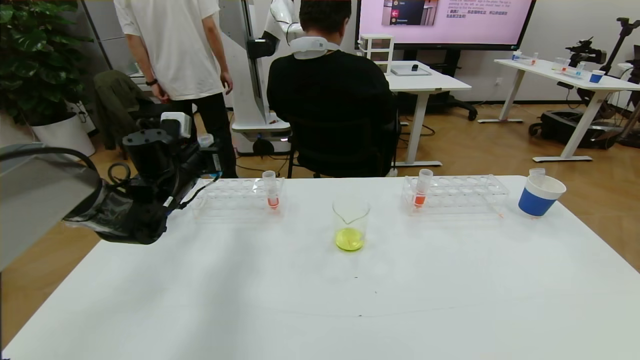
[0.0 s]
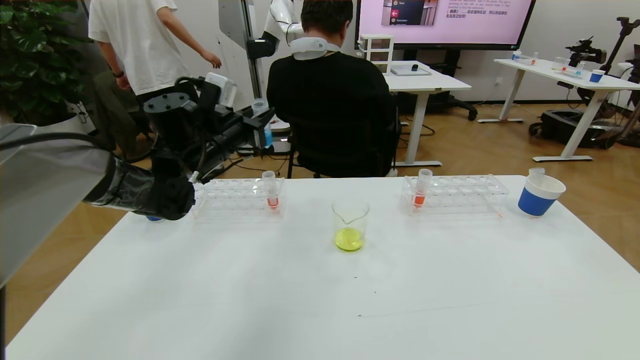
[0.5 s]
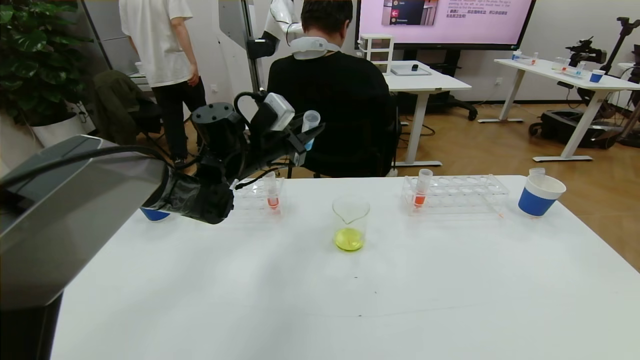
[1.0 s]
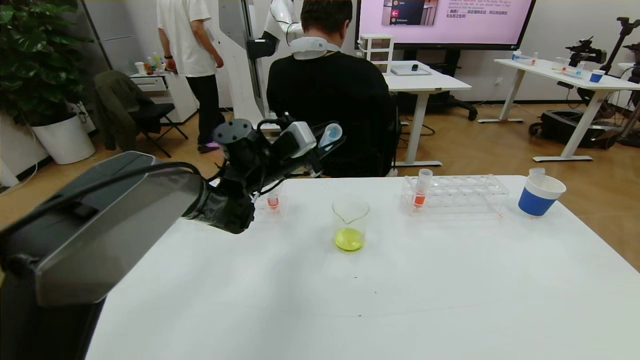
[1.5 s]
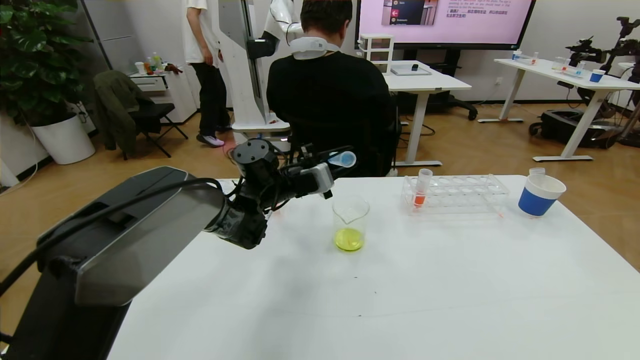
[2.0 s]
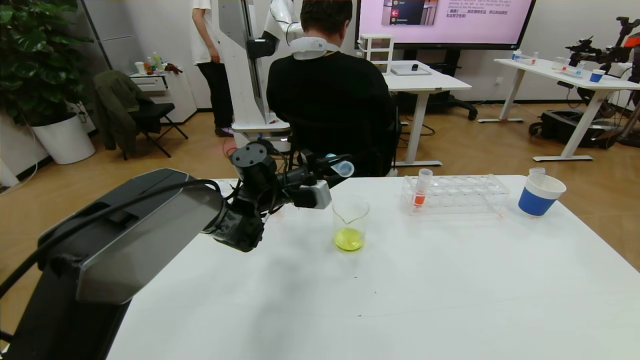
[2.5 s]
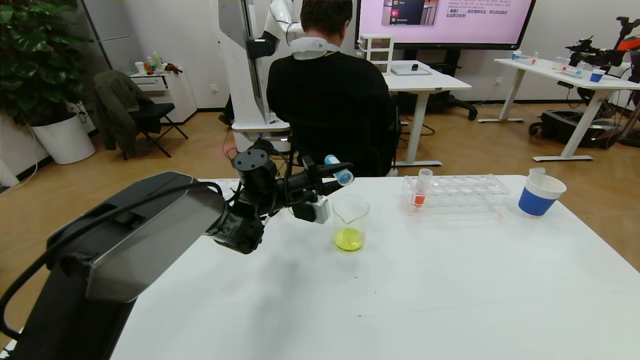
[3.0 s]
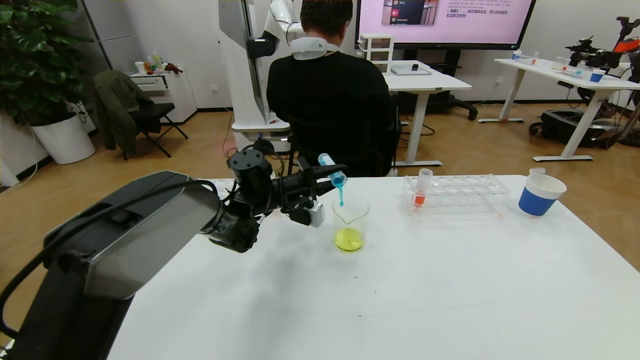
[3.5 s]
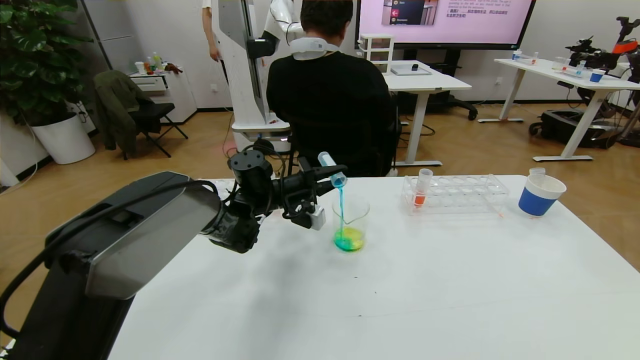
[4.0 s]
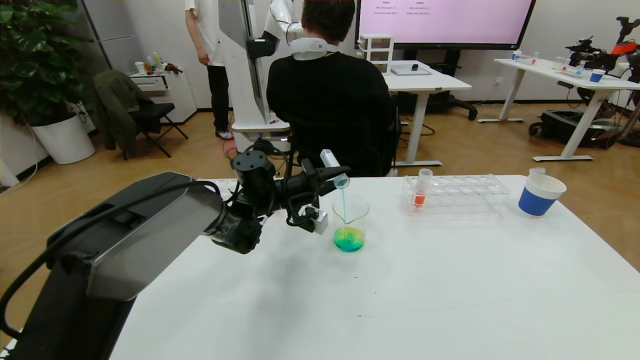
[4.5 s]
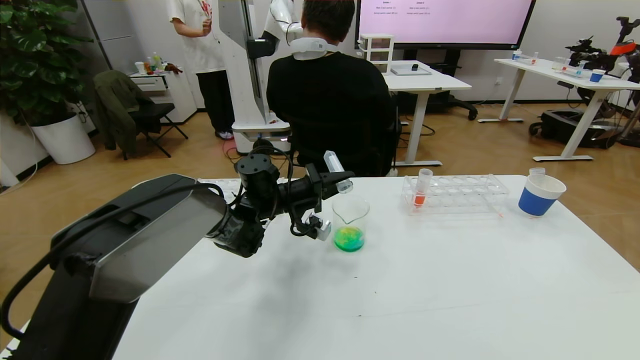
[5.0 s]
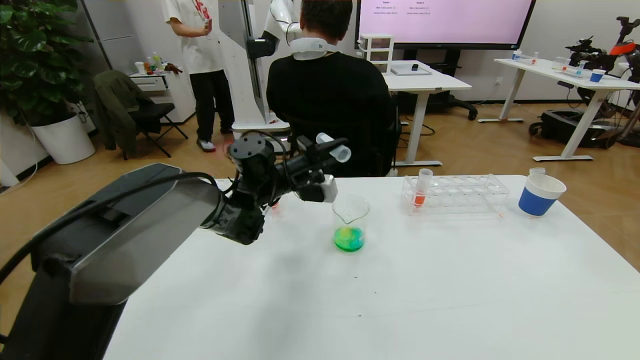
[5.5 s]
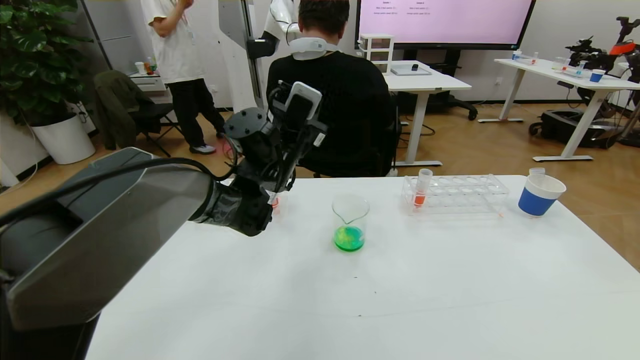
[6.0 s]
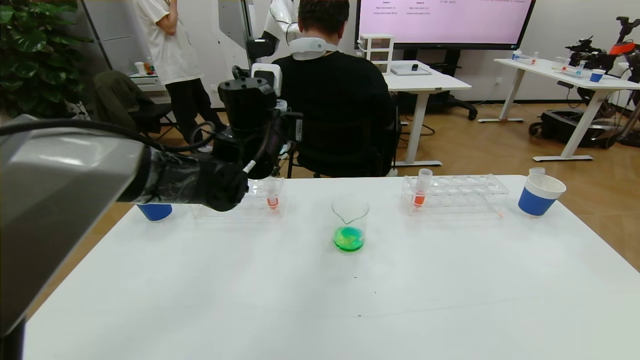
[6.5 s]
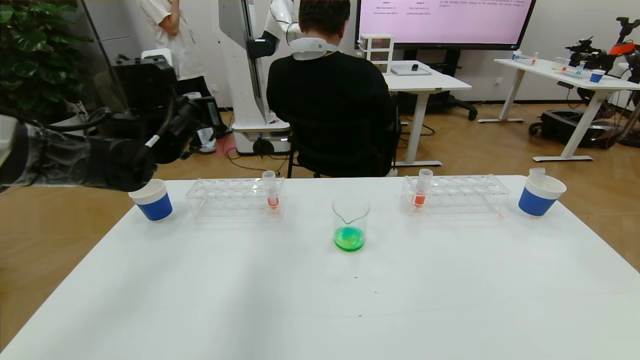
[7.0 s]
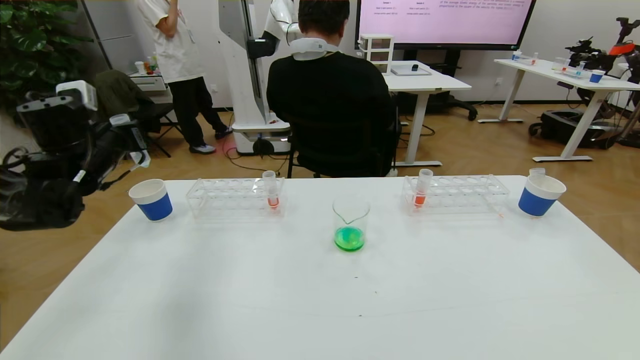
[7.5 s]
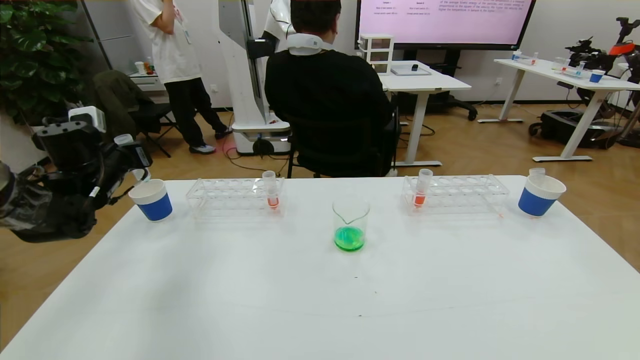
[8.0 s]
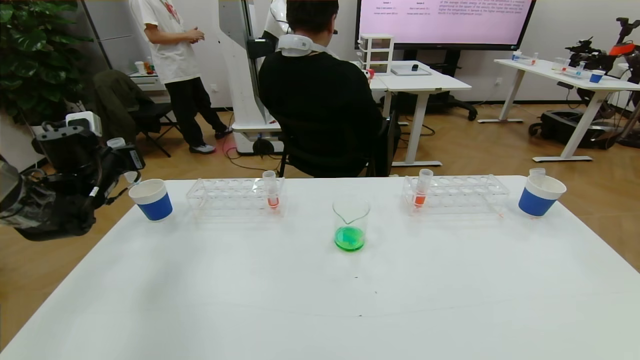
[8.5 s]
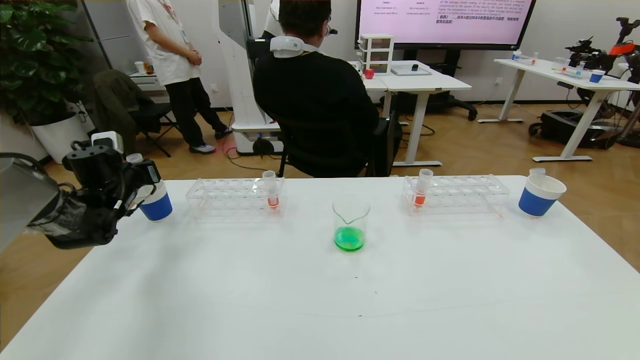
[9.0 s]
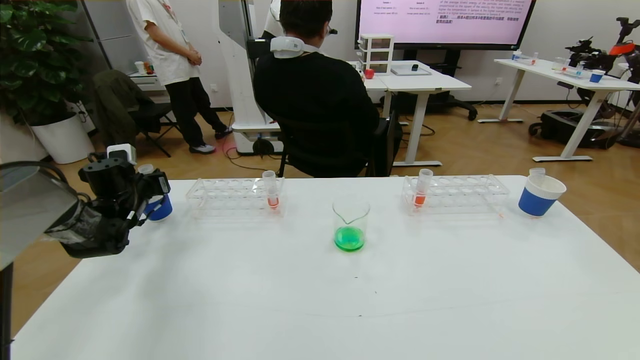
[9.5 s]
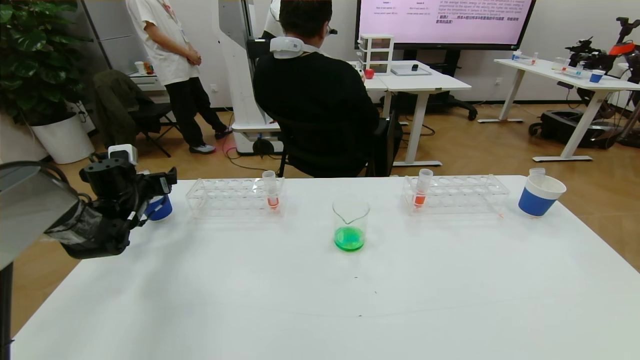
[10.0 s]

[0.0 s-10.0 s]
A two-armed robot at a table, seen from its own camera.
Task of the whole recording: pick up the test tube with yellow pigment and the test tube with blue pigment by grippers and pour them into the beaker.
0.0 to 2.0 s: The left gripper shifts roughly 20 cm to the right.
4.0 to 6.0 s: The left gripper heads upward, covering roughly 10 cm.
6.0 to 8.0 s: The left gripper is displaced to the left by some 30 cm.
8.0 to 10.0 s: The left gripper moves downward, about 10 cm, and opens.

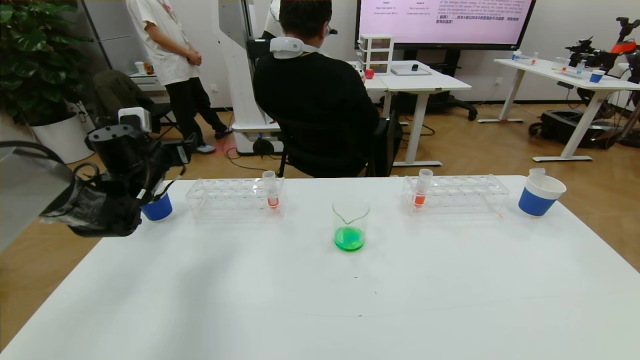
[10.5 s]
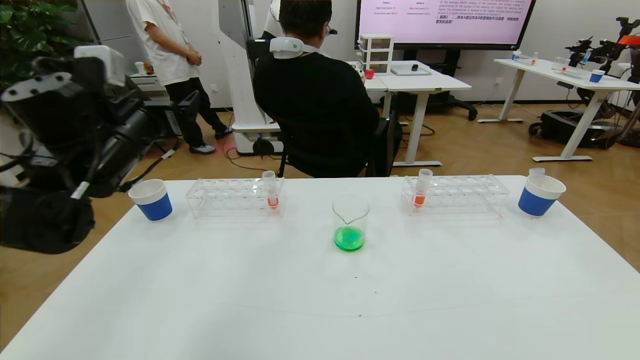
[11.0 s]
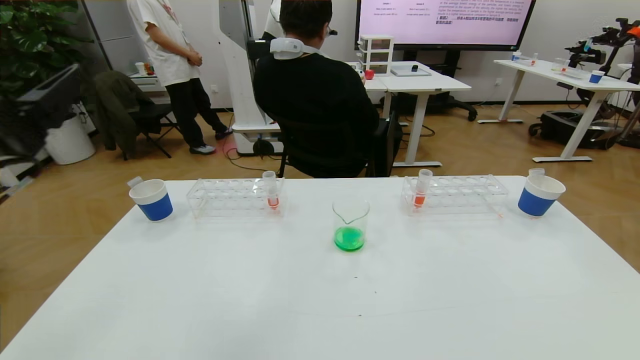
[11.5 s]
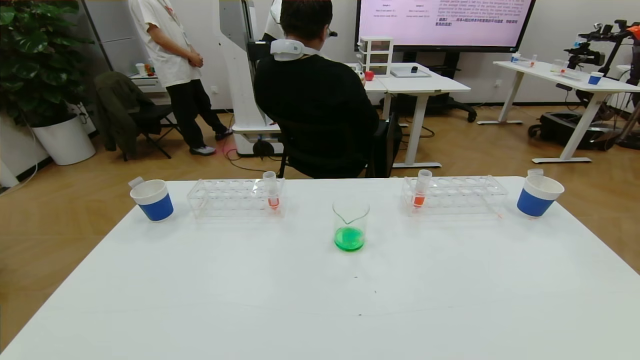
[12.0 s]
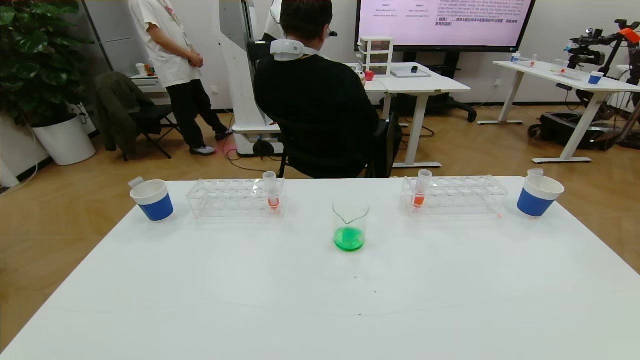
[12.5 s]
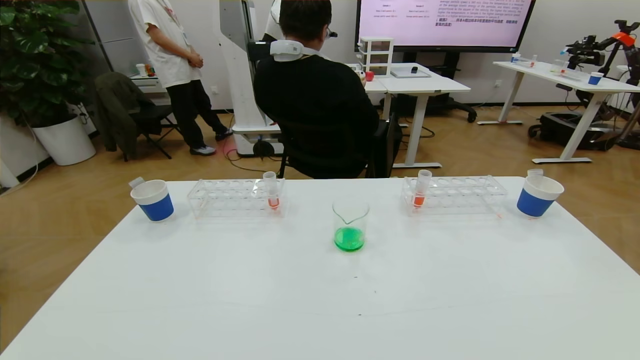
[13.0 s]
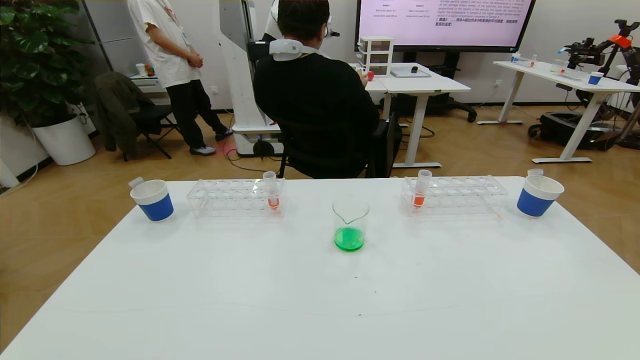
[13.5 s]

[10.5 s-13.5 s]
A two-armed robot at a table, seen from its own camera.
Task of the whole recording: pick up the test tube with yellow pigment and the test tube with blue pigment by grippers and pour them into the beaker.
10.5 to 12.0 s: The left gripper heads backward, covering approximately 40 cm.
